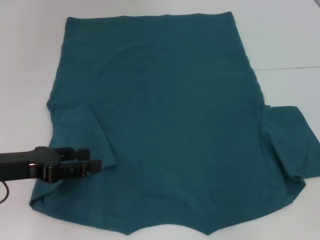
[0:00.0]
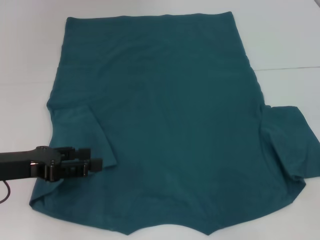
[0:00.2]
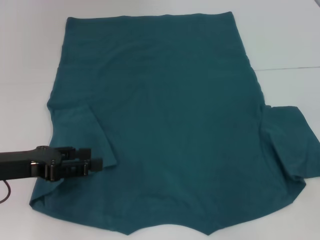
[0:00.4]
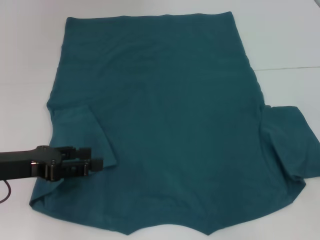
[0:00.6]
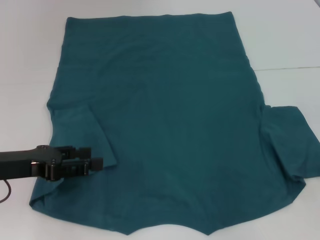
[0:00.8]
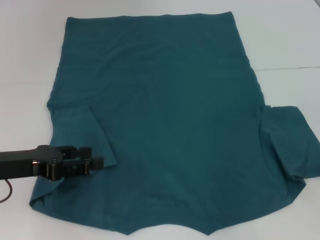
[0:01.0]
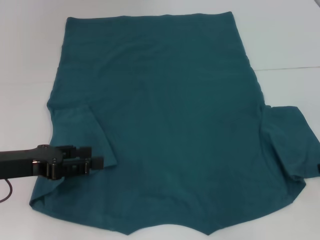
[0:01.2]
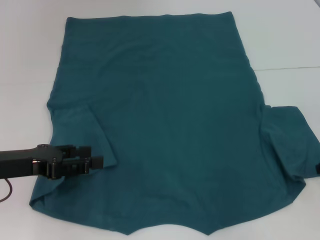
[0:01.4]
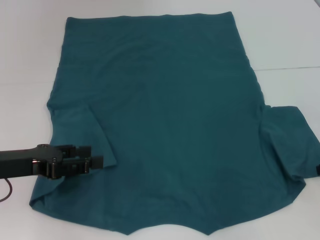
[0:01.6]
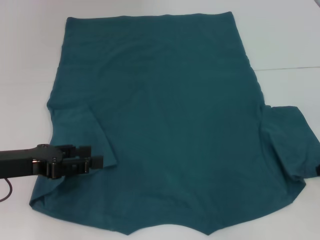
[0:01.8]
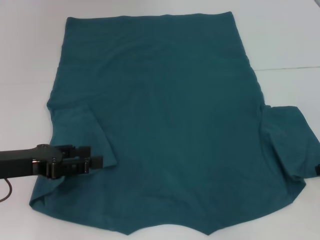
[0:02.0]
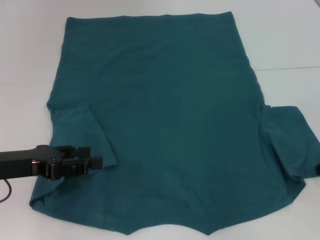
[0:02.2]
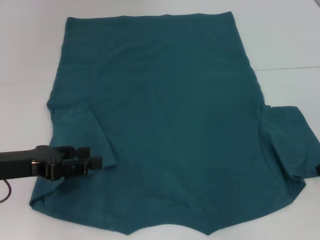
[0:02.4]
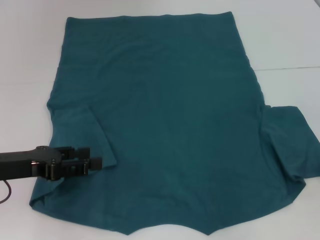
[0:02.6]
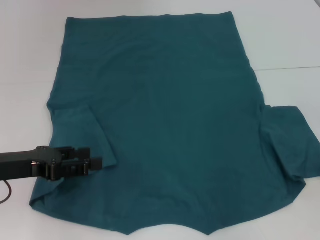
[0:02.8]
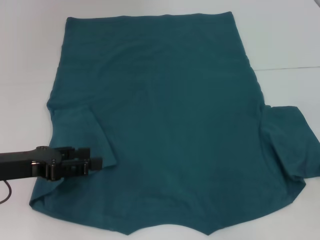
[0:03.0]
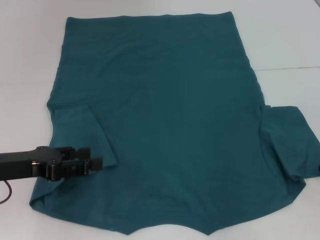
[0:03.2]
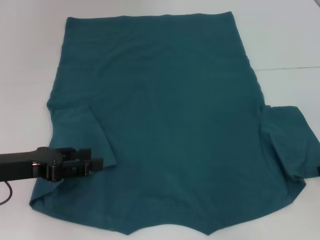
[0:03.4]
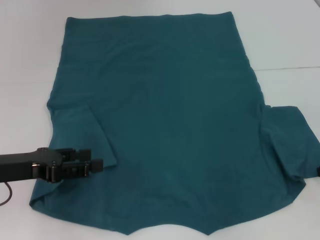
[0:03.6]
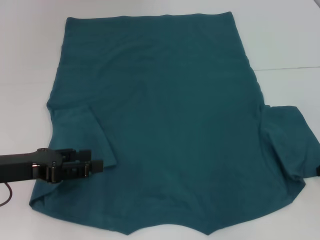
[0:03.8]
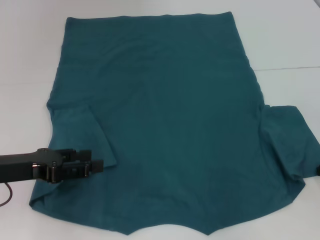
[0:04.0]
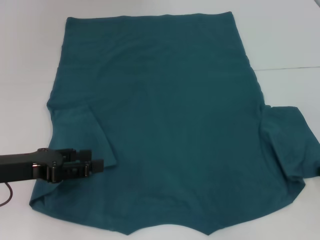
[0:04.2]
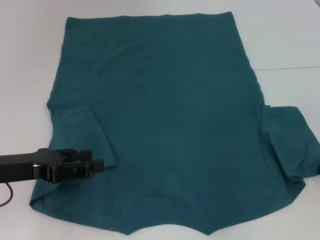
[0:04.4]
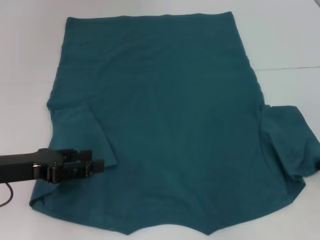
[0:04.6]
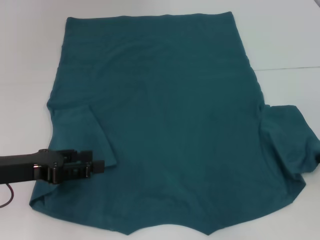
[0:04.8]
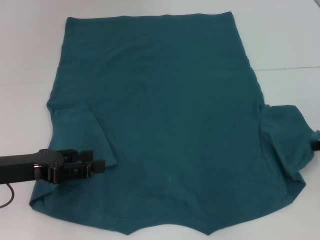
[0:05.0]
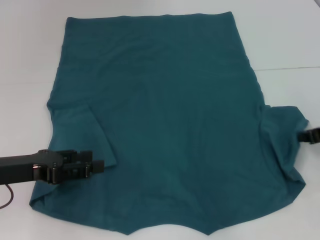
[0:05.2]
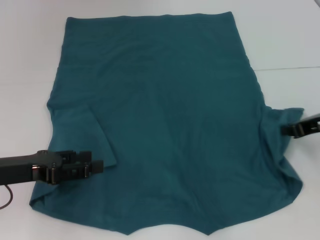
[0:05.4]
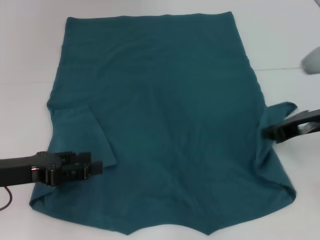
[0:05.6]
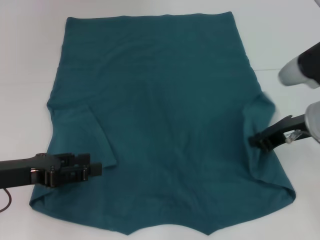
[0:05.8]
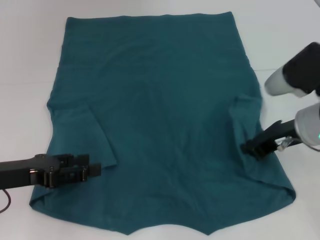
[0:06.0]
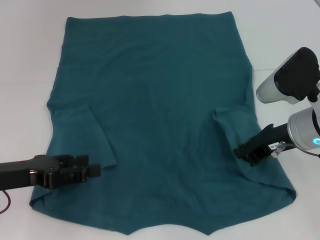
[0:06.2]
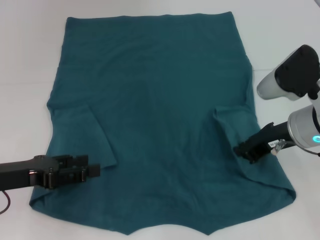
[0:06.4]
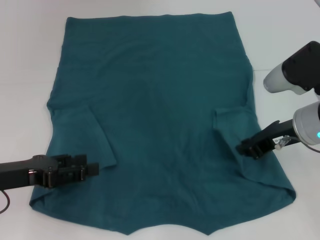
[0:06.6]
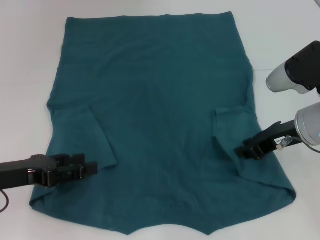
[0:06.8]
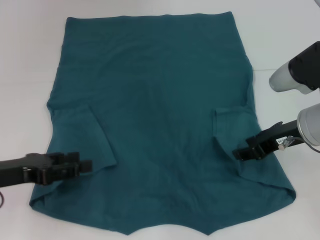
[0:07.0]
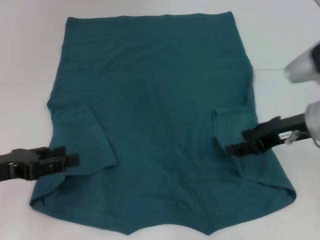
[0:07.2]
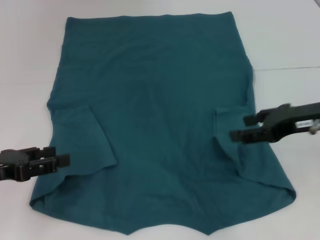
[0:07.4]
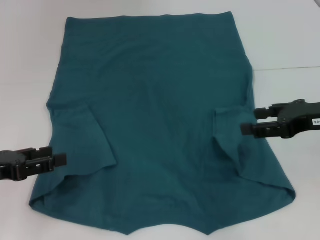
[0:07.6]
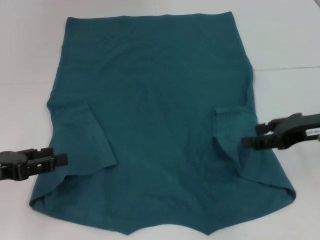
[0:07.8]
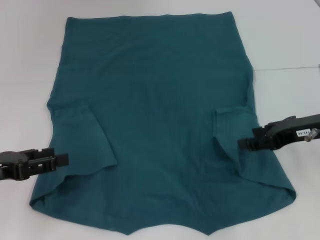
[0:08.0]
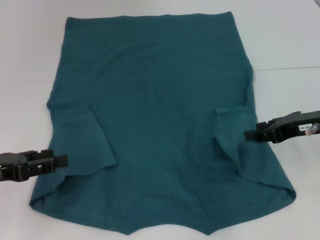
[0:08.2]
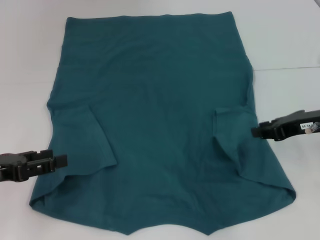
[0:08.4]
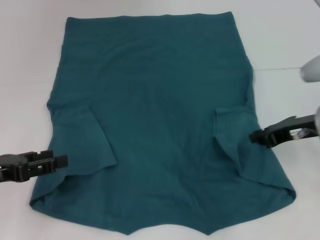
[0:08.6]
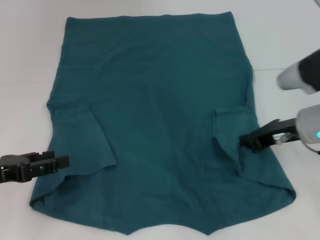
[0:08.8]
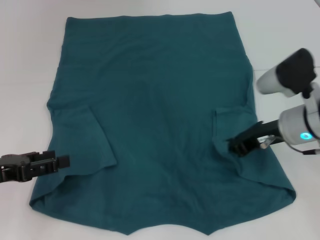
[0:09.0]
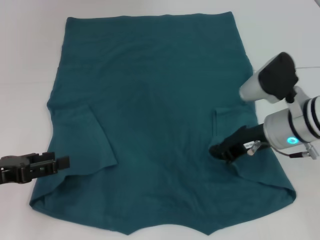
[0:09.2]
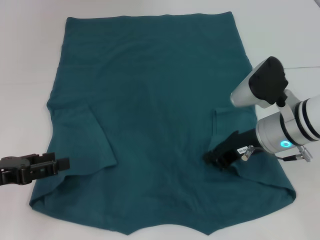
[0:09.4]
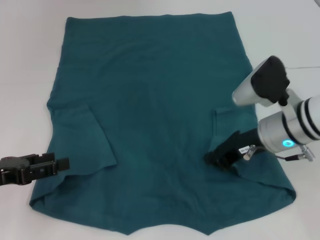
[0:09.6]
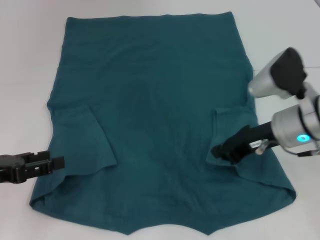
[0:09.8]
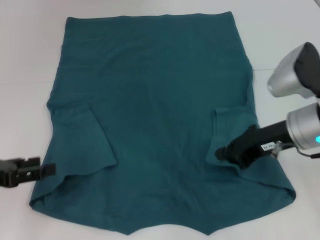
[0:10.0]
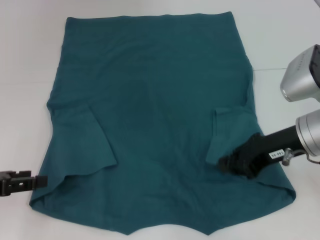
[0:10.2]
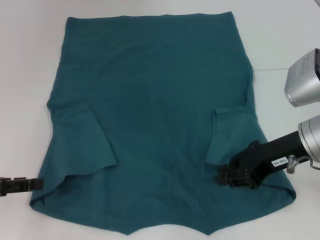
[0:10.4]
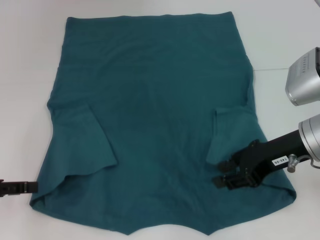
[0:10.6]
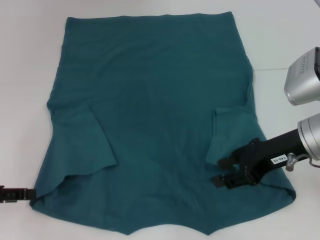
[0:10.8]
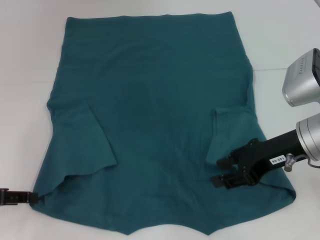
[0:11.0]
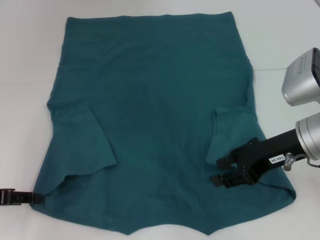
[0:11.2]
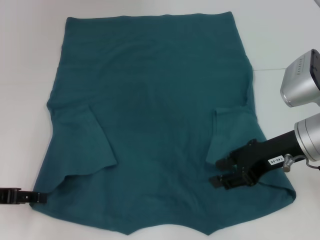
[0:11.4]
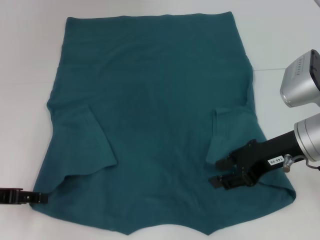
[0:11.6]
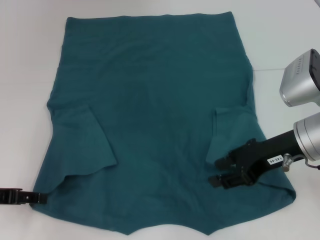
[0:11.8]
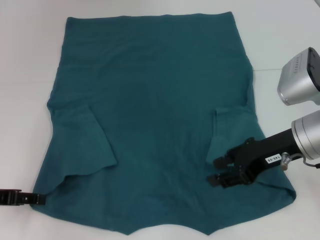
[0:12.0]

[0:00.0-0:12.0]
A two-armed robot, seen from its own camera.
Step, 0:00.0 to 0:07.0: Fold the bottom right sleeve to the right.
0:00.0 to 0:01.6: The grippers move only a little.
0:01.6 to 0:04.4: The two grippers keep their place.
0:04.4 to 0:06.0: The right gripper goes some 15 cm to the left.
0:06.0 to 0:07.6: The right gripper travels to the right by some 5 cm, and opens its fingers.
0:07.6 to 0:09.0: The right gripper shifts about 10 cm to the left and downward, and closes its fingers.
0:09.0 to 0:10.4: The right gripper shifts by some 5 cm.
0:10.4 to 0:12.0: The right gripper opens its fingers.

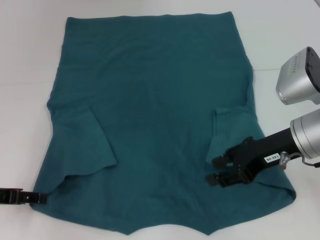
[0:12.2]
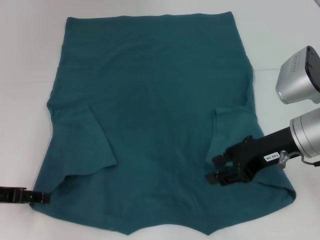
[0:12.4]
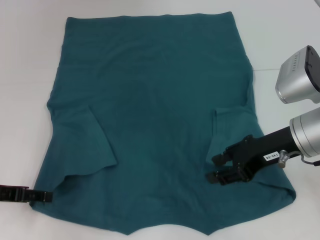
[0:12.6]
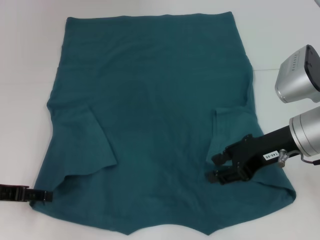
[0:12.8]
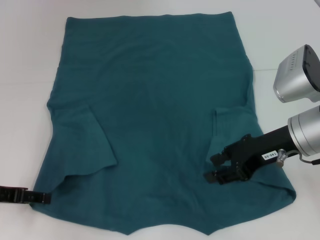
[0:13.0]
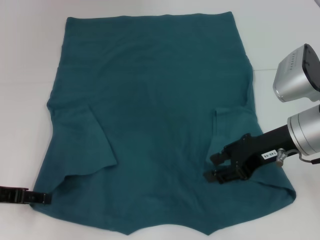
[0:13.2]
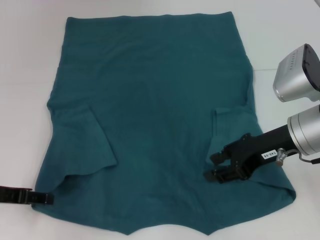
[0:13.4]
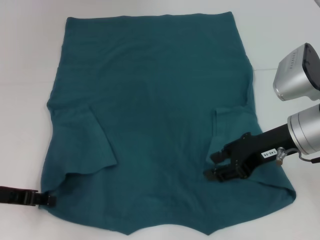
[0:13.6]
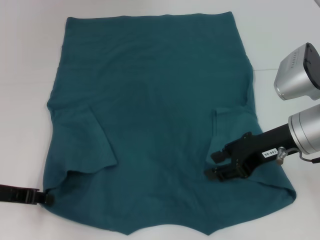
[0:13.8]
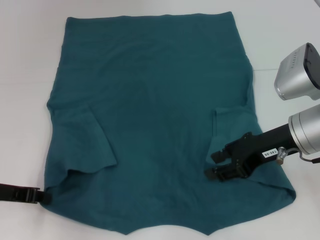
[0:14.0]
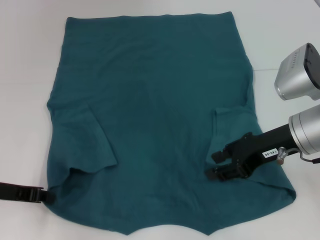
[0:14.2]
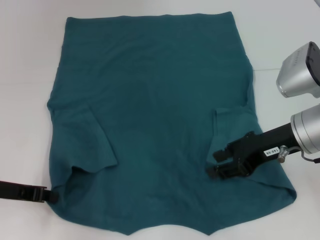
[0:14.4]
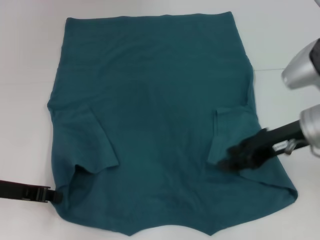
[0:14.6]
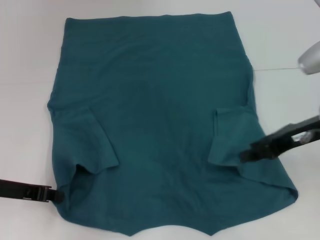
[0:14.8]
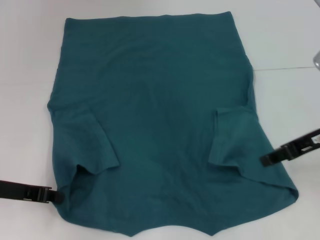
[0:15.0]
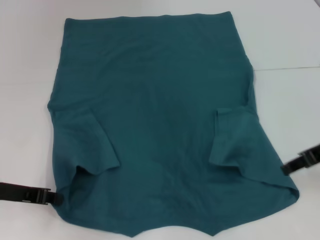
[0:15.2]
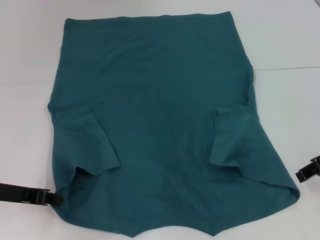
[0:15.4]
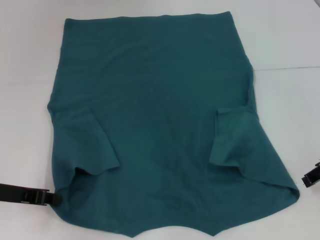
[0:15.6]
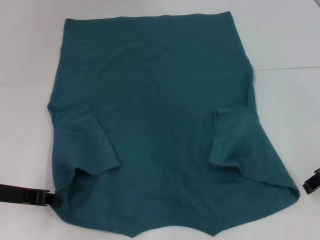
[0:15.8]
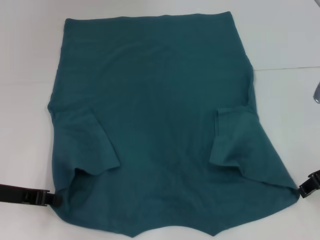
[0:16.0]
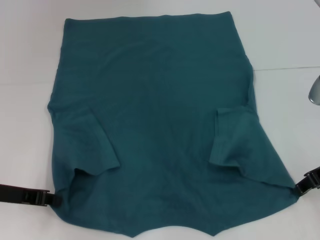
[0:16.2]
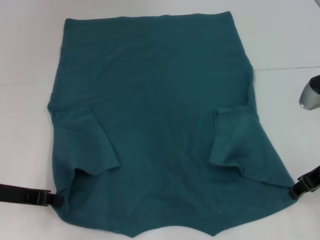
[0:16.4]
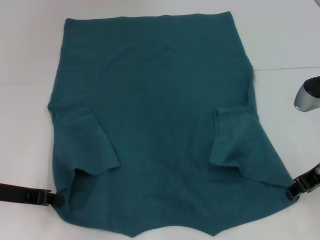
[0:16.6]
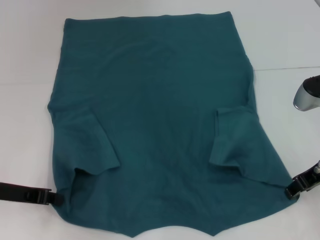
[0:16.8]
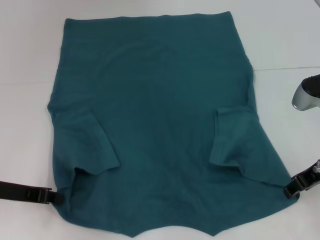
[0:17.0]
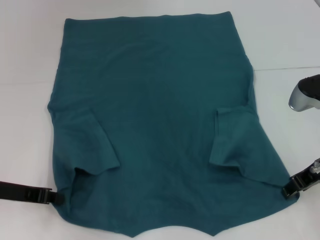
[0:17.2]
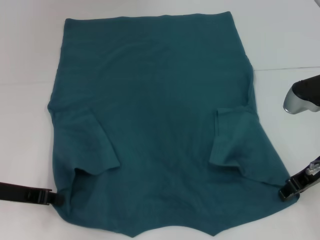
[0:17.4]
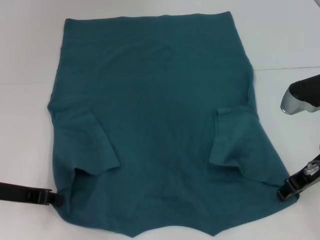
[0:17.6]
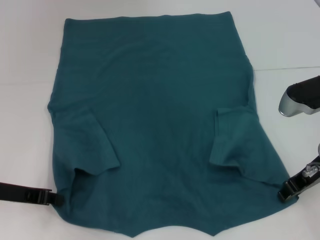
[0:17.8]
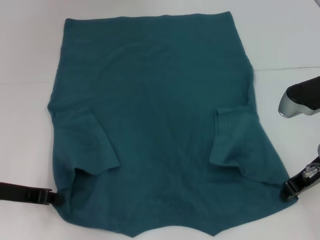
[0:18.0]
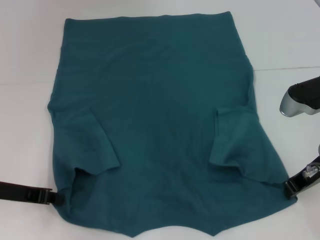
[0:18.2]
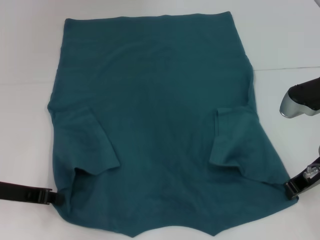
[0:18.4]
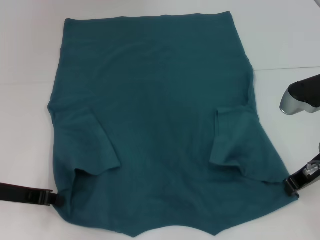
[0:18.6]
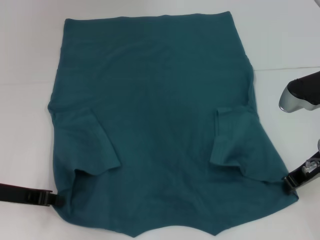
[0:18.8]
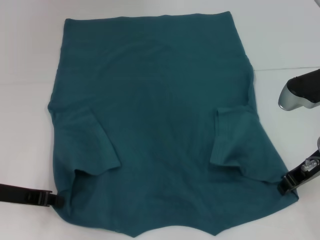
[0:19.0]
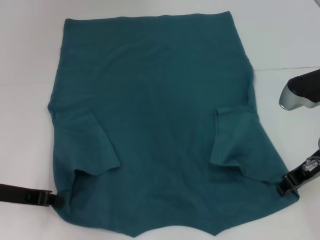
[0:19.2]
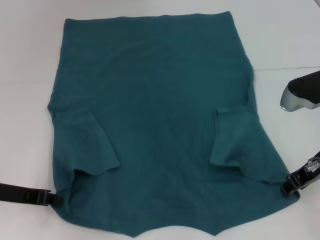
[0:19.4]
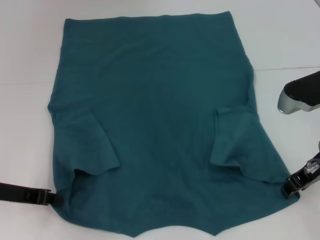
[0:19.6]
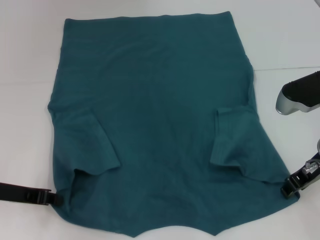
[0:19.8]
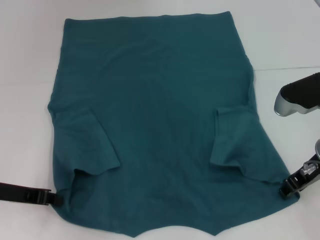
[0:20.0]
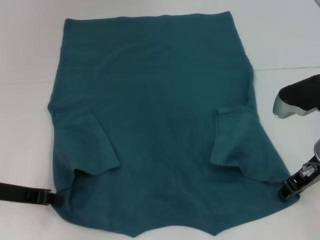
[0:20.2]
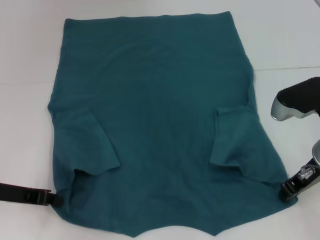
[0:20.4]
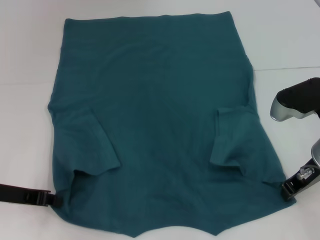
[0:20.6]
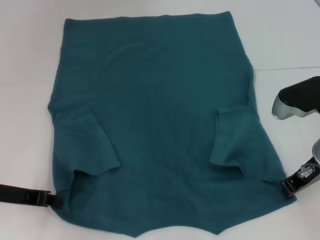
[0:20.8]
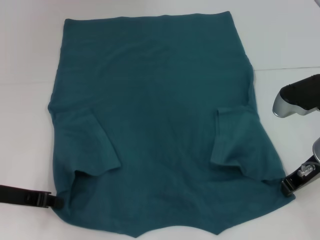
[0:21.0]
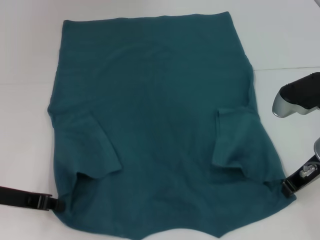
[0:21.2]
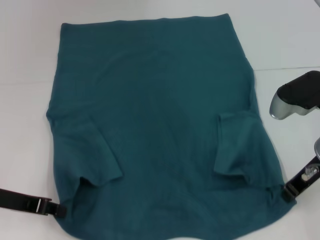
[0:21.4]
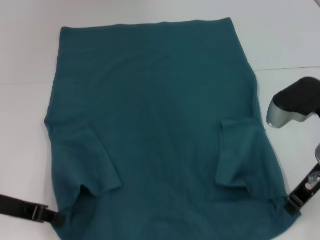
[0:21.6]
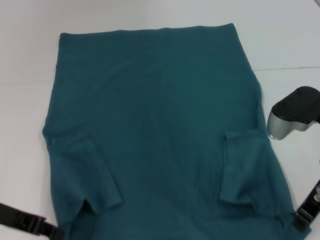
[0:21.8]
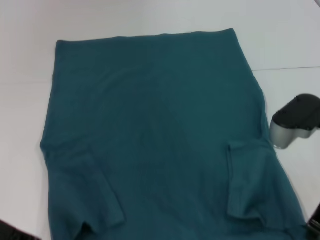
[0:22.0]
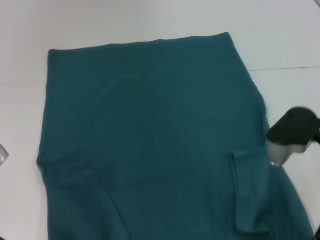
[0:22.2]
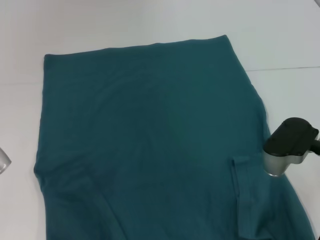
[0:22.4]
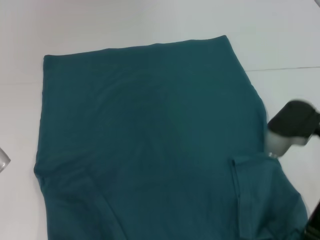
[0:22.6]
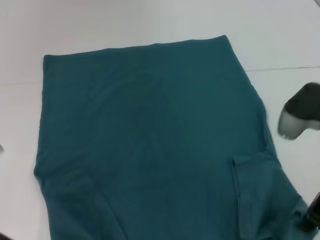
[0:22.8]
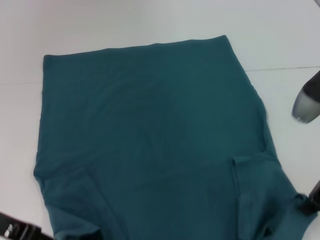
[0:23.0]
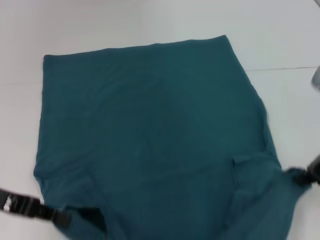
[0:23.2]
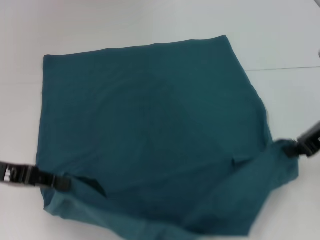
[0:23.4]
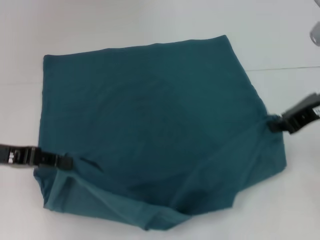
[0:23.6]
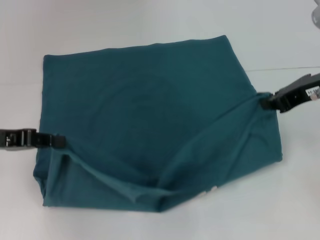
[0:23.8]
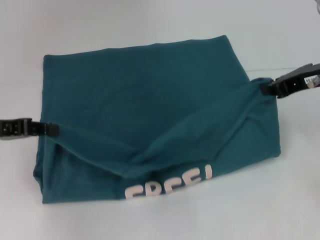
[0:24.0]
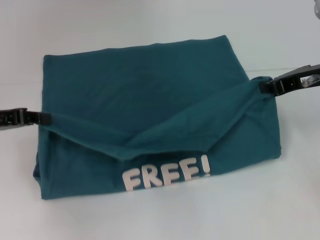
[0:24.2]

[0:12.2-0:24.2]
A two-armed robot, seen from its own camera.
Step, 0:12.2 to 0:14.2: Grab the bottom left corner with your left hand.
Step, 0:14.4 to 0:21.2: Grab the bottom right corner with your right hand.
0:12.2 to 0:13.8: The grippers stay close to where they were, moving slightly.
0:13.8 to 0:15.2: The right gripper moves to the right, some 5 cm, while the left gripper closes its fingers.
0:15.2 to 0:16.6: The grippers stay close to where they were, moving slightly.
0:16.6 to 0:18.2: The grippers make only small movements.
0:18.2 to 0:19.8: The right gripper closes, then reopens.
0:19.8 to 0:21.2: The right gripper closes up.
0:22.6 to 0:24.2: The left gripper shifts about 10 cm forward. Meanwhile the right gripper travels forward and to the right by roughly 10 cm.
